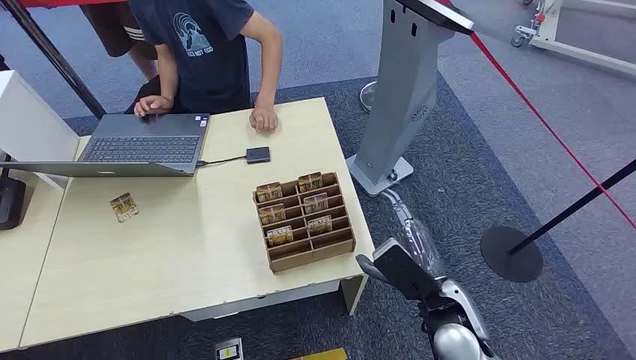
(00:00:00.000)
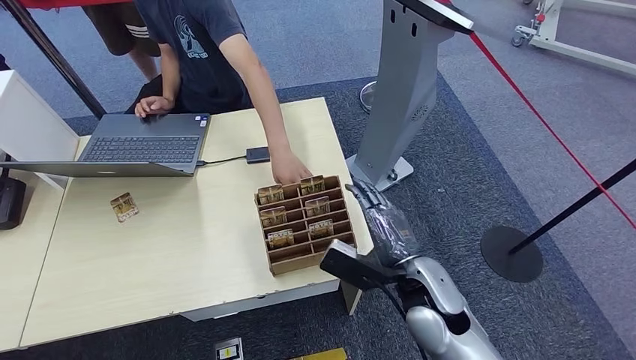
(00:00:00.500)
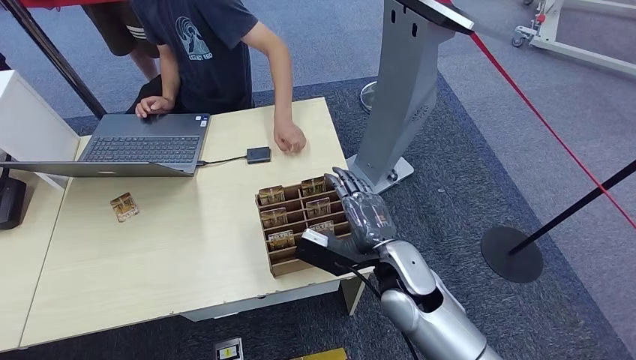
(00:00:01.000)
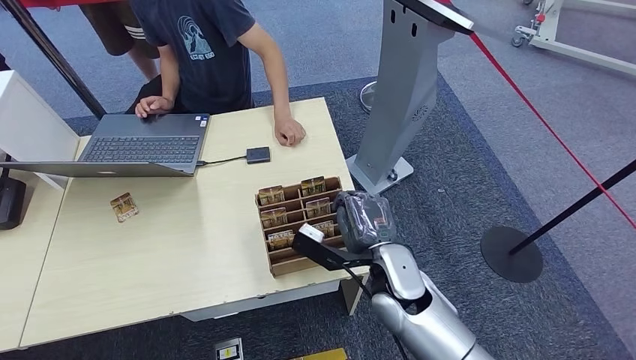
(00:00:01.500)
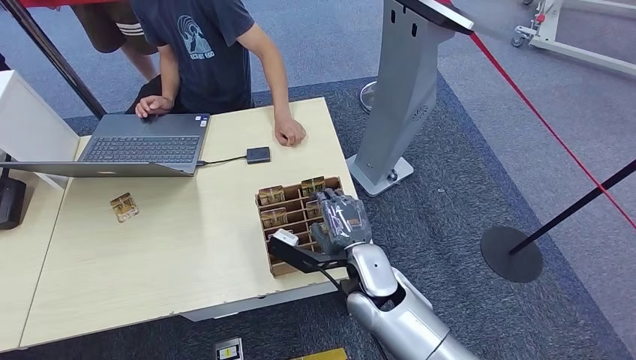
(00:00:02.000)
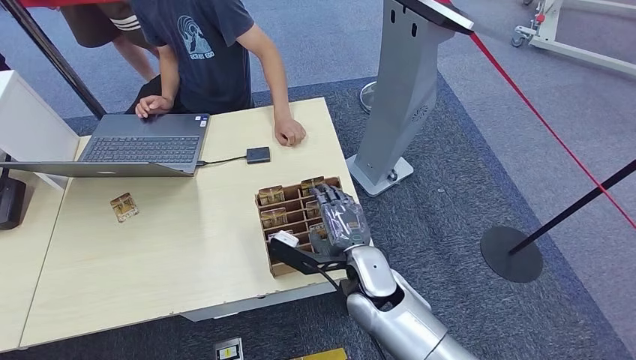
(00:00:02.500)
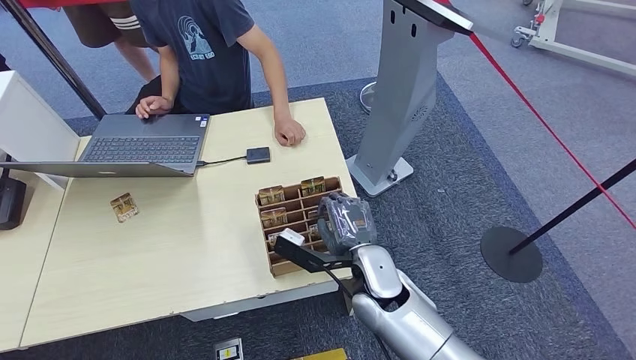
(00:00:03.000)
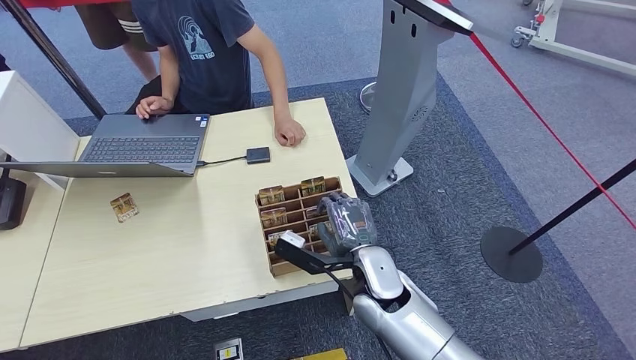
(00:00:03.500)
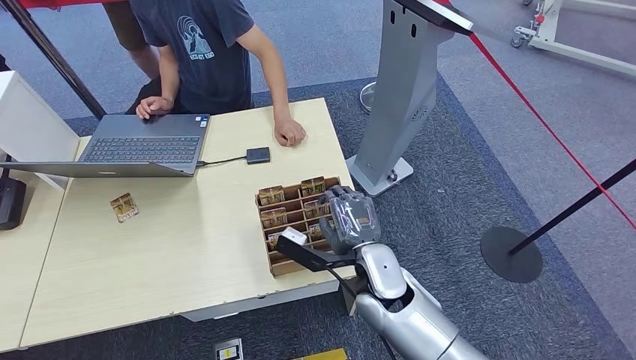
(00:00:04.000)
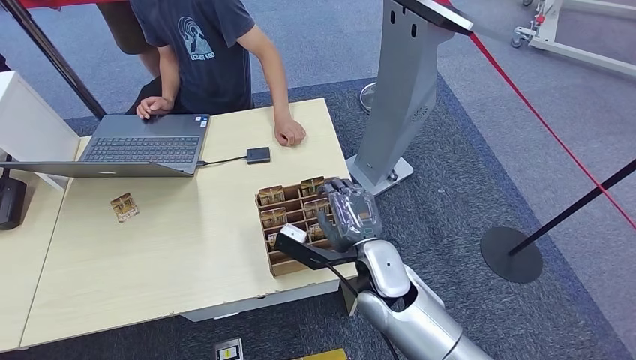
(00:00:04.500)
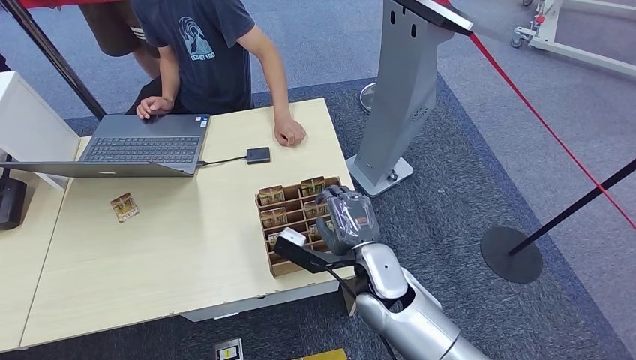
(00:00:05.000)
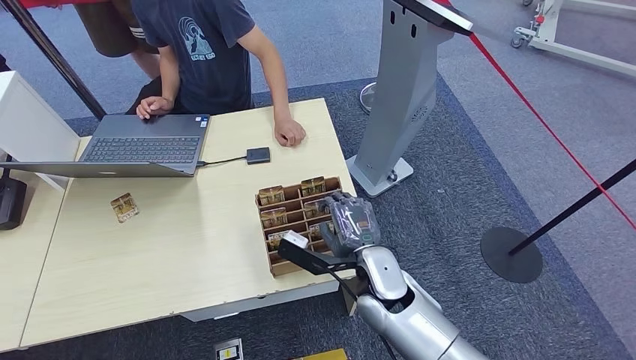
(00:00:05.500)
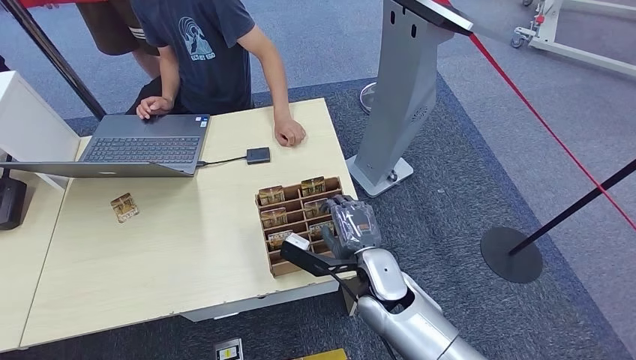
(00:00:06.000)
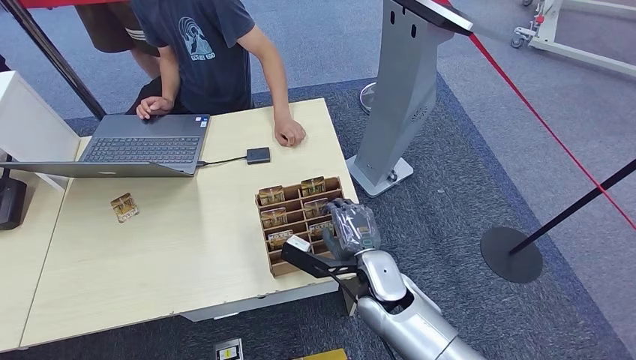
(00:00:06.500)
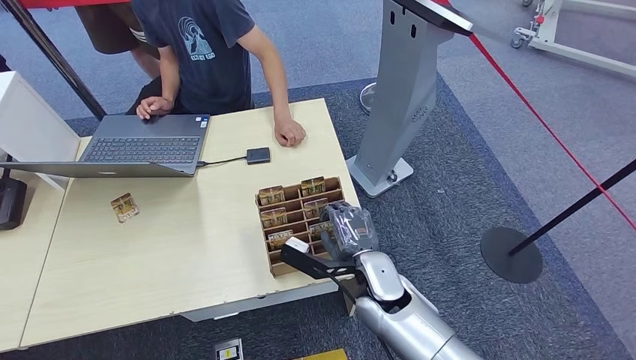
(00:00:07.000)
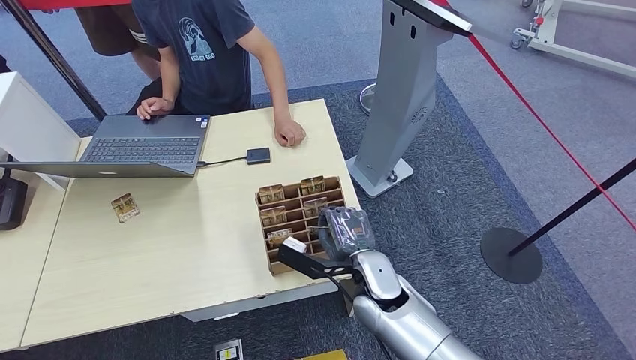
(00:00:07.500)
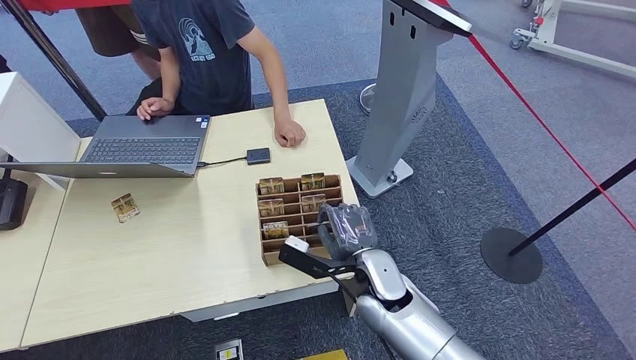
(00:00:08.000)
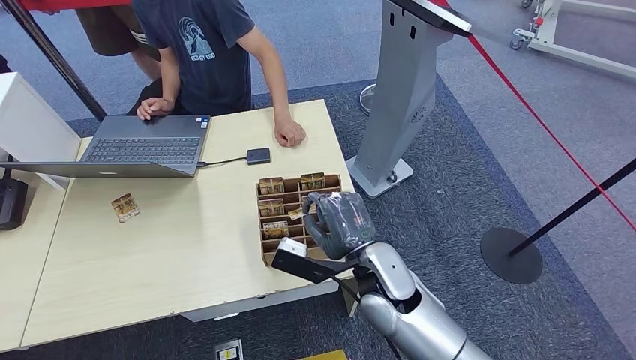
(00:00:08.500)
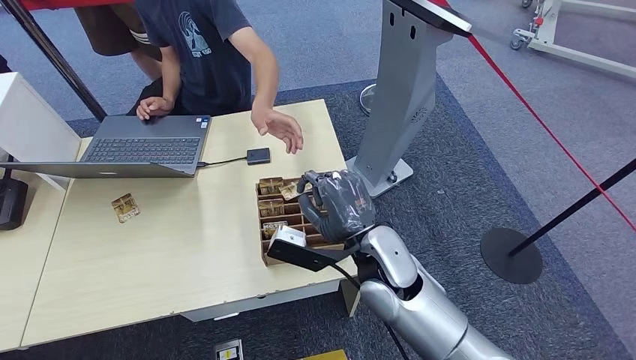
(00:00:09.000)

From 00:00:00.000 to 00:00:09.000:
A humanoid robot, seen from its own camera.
Step, from 00:00:00.000 to 00:00:08.000: Pick up the key card from the card box.
Step, from 00:00:08.500 to 00:00:09.000: Hand the key card to the target.
From 00:00:02.000 to 00:00:07.000: The hands make only small movements.
From 00:00:07.000 to 00:00:09.000: The right hand heads upward, covering approximately 10 cm.

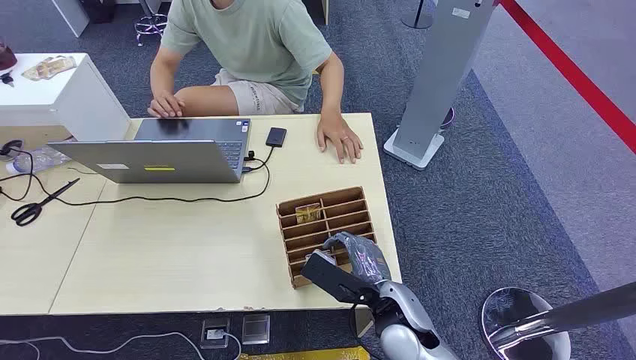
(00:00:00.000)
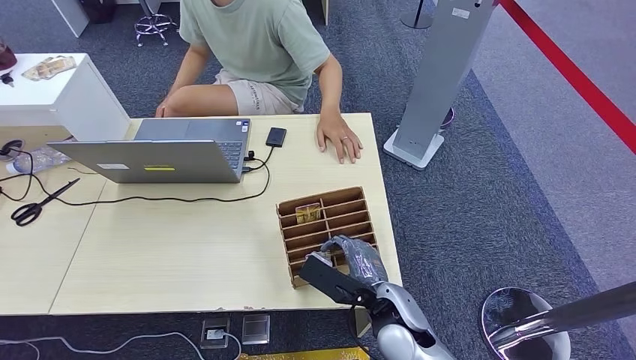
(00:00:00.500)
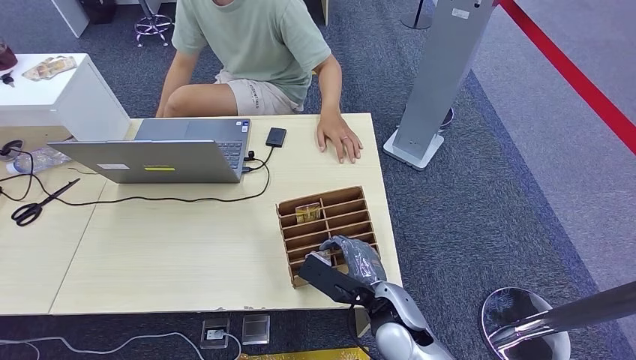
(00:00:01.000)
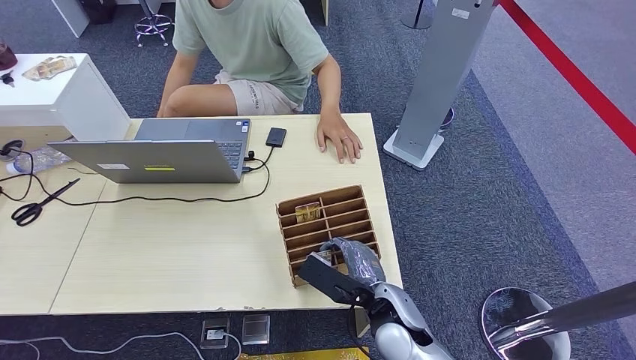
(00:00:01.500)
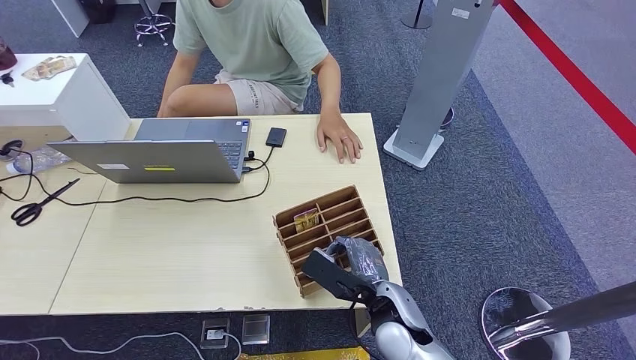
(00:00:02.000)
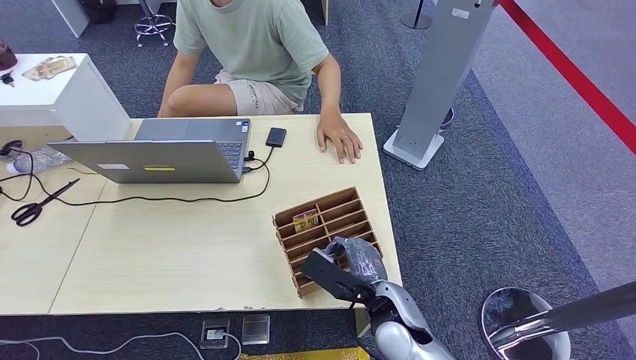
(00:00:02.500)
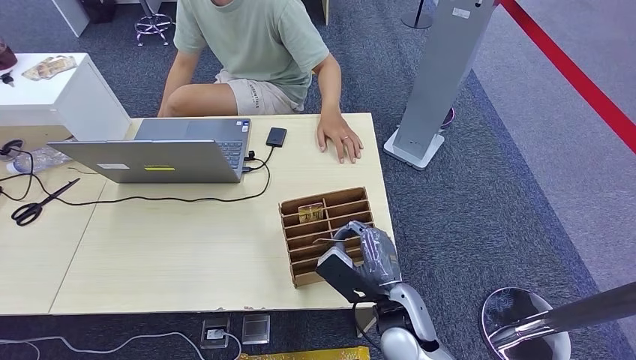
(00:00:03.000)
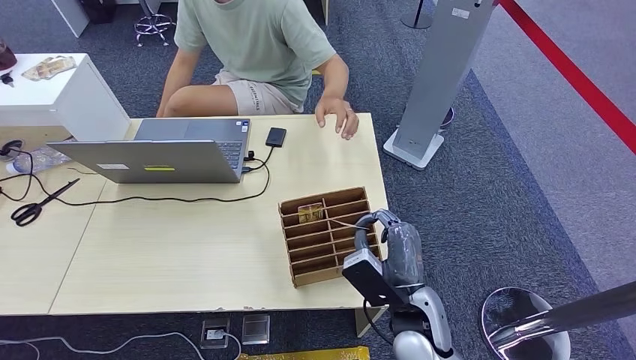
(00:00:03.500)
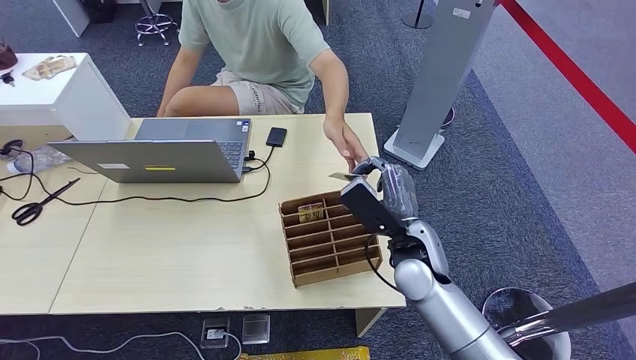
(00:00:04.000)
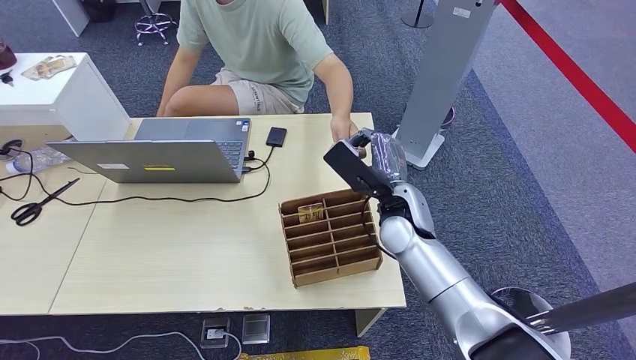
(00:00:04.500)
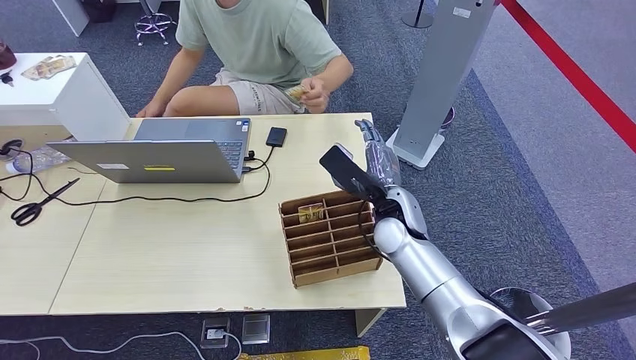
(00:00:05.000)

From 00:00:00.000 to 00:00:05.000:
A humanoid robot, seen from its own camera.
Step, from 00:00:00.000 to 00:00:03.000: Pick up the key card from the card box.
Step, from 00:00:04.500 to 00:00:05.000: Hand the key card to the target.
From 00:00:02.500 to 00:00:05.000: The right hand goes roughly 15 cm forward and upward.
